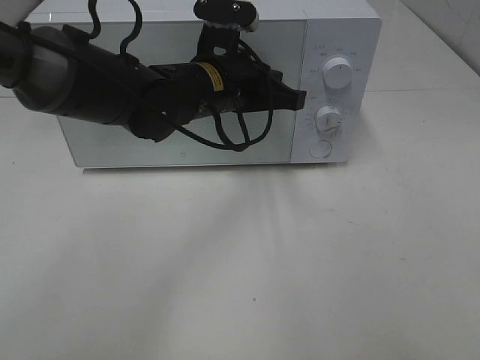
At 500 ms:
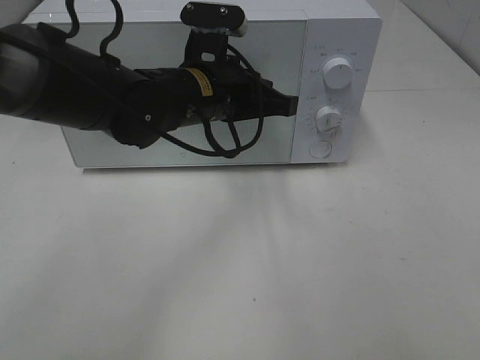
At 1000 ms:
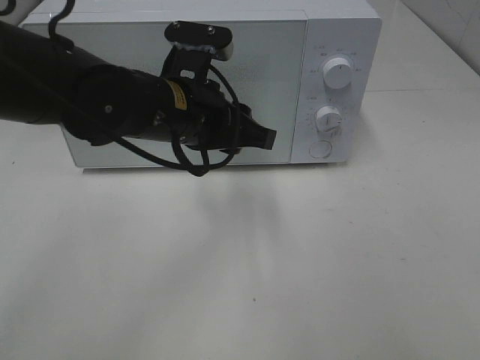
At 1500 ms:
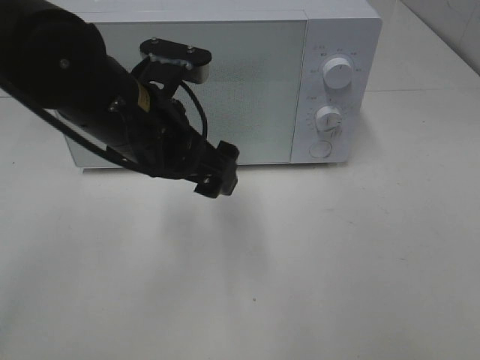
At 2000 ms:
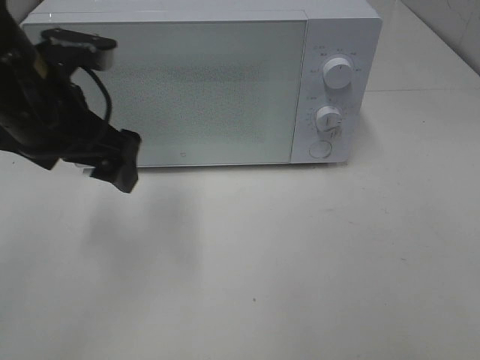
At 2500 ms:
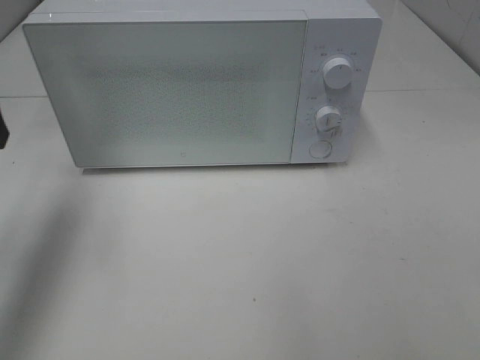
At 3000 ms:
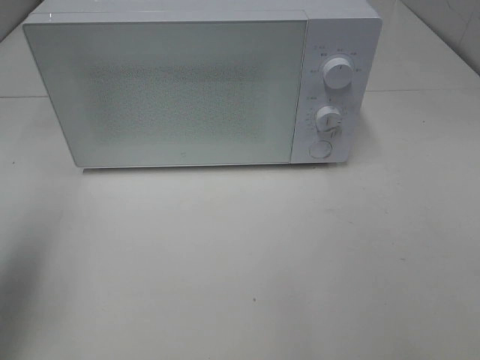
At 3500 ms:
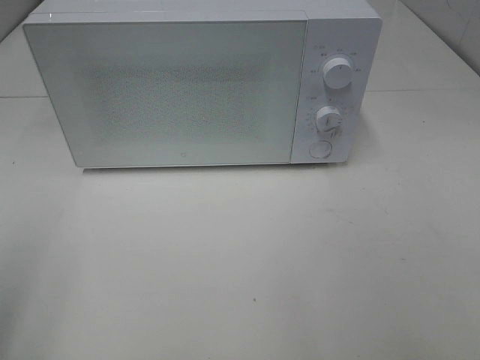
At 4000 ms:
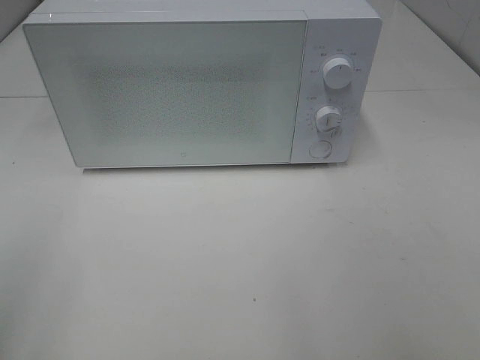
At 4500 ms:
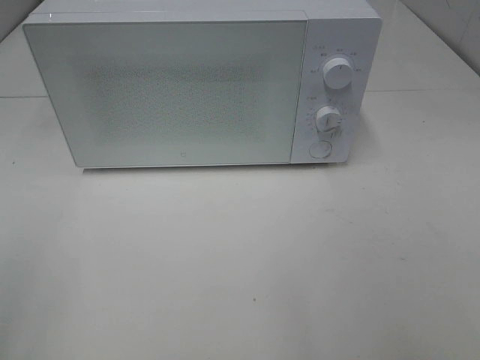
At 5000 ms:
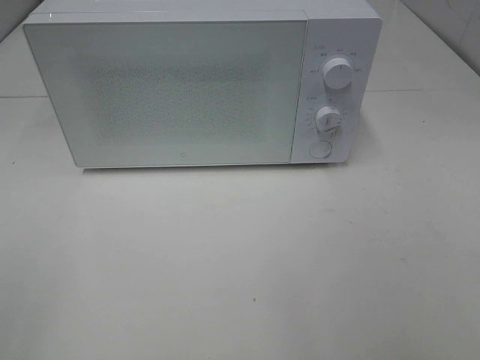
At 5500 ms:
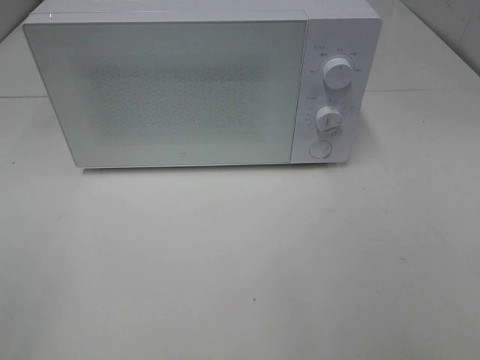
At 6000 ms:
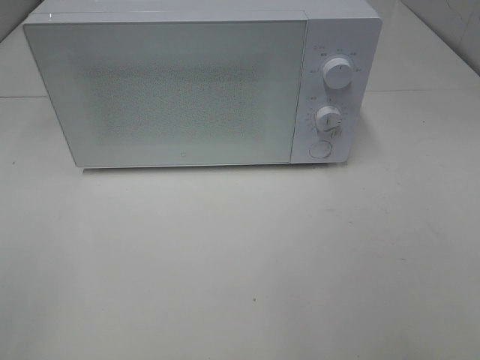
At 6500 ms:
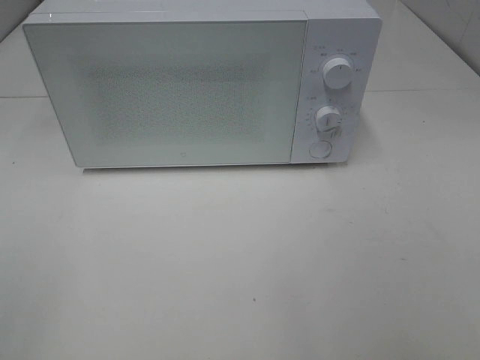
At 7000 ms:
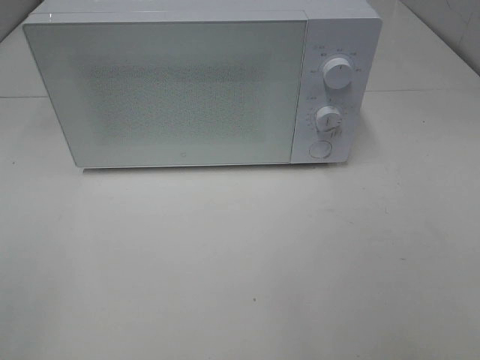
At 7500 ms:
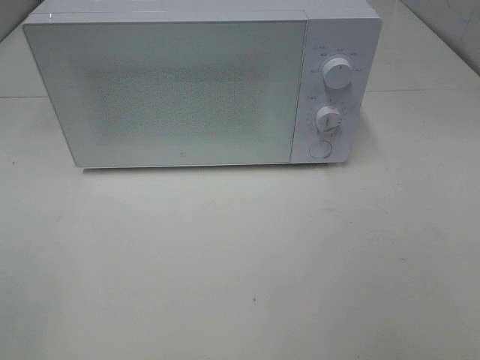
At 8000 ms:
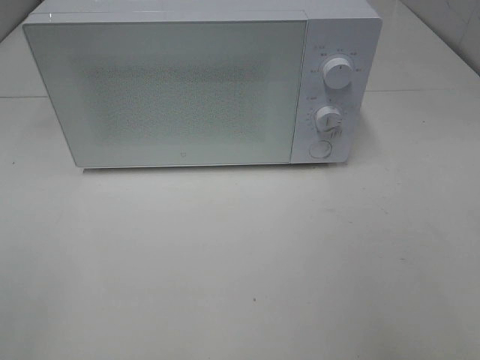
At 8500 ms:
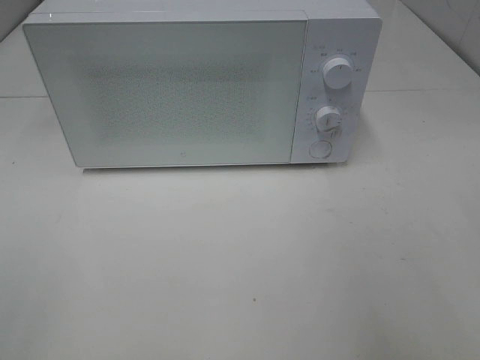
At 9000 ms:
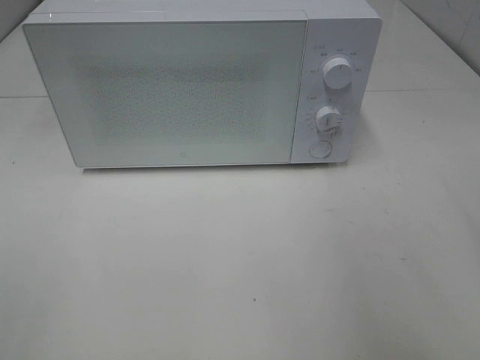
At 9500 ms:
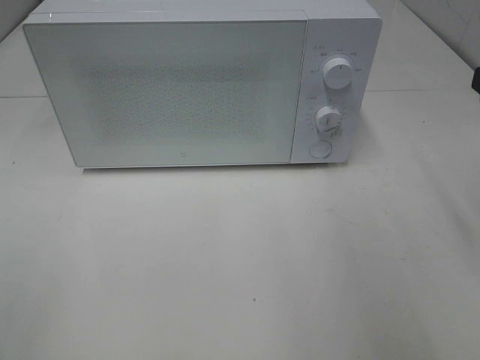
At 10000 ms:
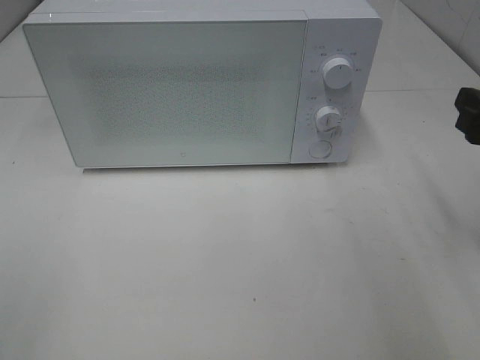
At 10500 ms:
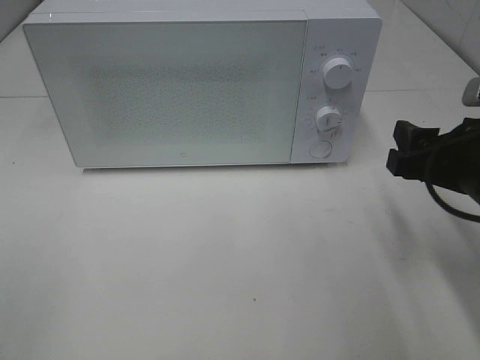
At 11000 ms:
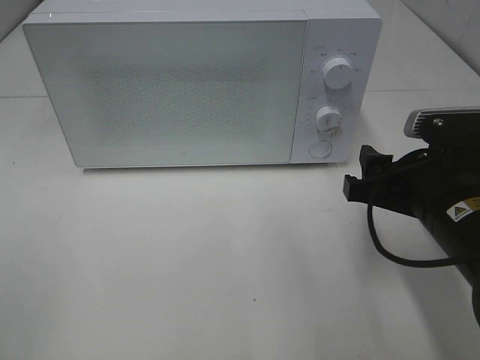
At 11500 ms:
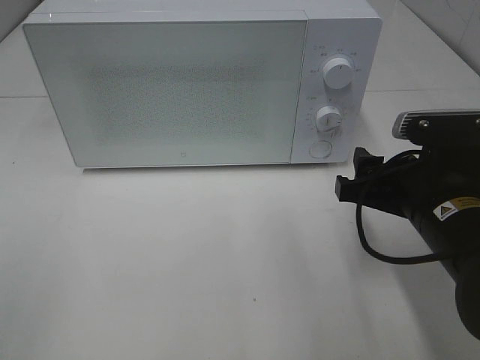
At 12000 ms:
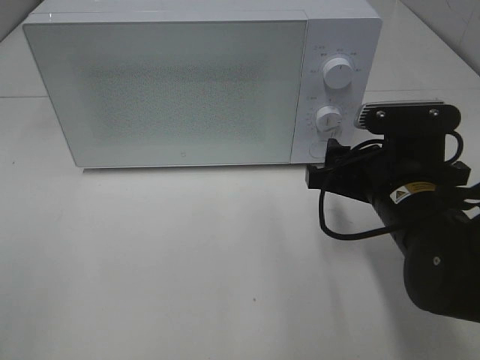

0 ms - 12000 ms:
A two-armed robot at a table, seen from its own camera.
Task of the whole recording: Heat Sandwich.
0 ms - 2000 ms: The left gripper moves to the left, backward and upward, approximately 20 cm, and opens.
2000 ms - 4000 ms: The left gripper goes some 25 cm backward and to the left.
8000 ms - 10000 ms: The right gripper travels forward and downward by approximately 15 cm.
10000 ms - 12000 ms: The right gripper is displaced to the left and downward by approximately 15 cm.

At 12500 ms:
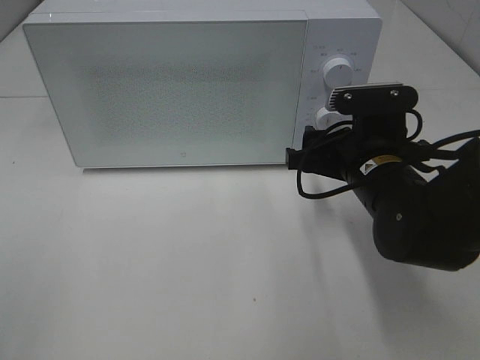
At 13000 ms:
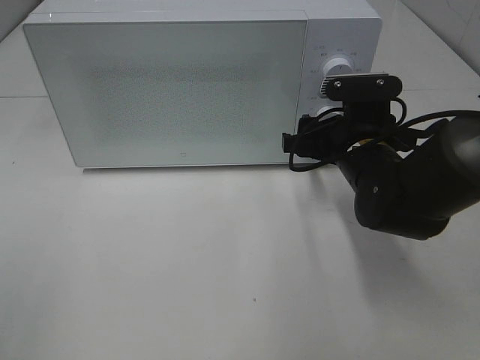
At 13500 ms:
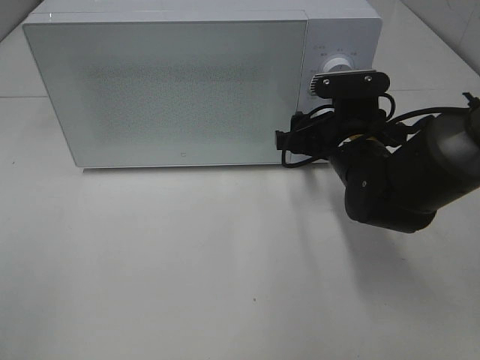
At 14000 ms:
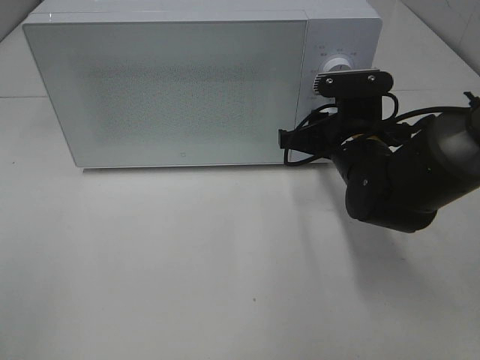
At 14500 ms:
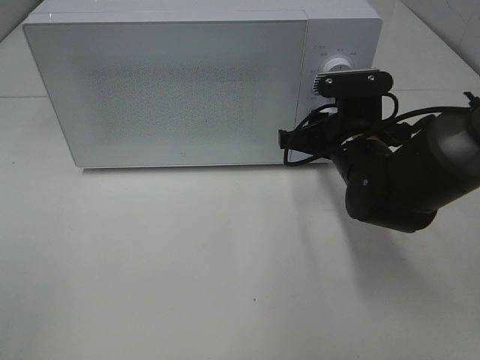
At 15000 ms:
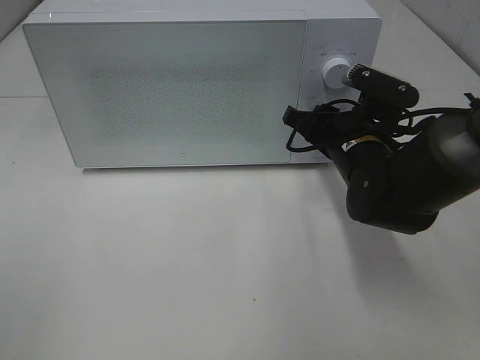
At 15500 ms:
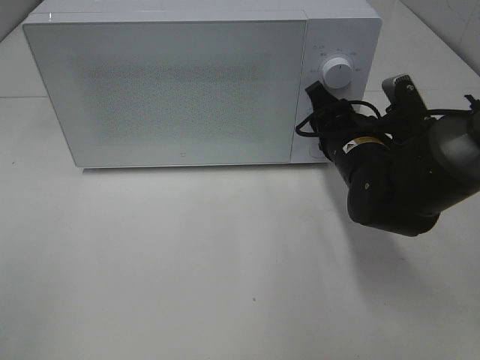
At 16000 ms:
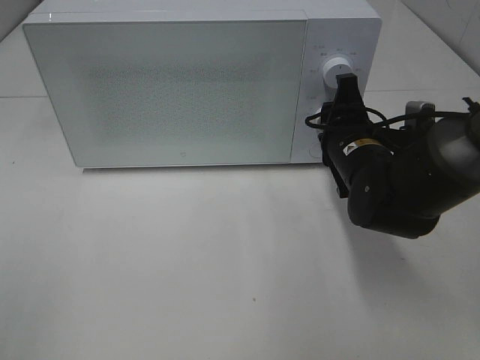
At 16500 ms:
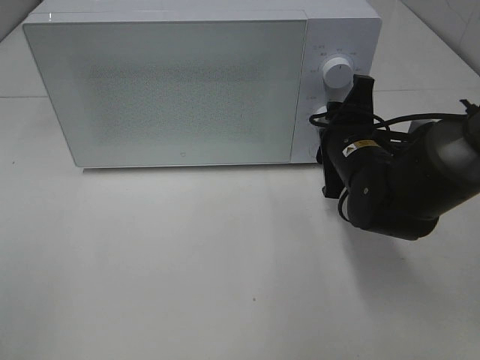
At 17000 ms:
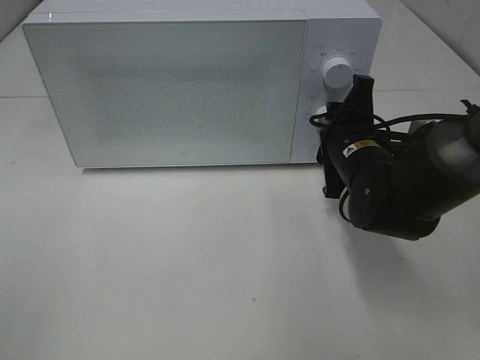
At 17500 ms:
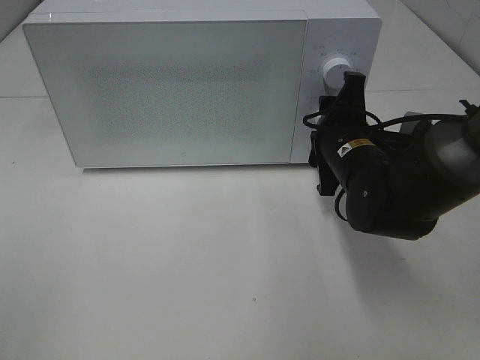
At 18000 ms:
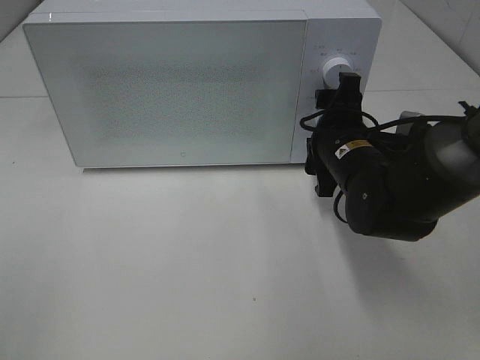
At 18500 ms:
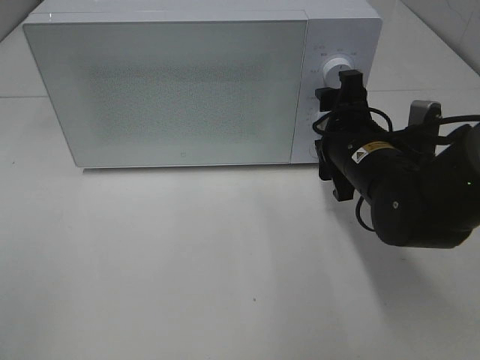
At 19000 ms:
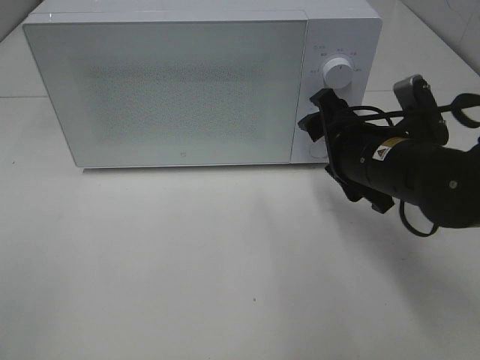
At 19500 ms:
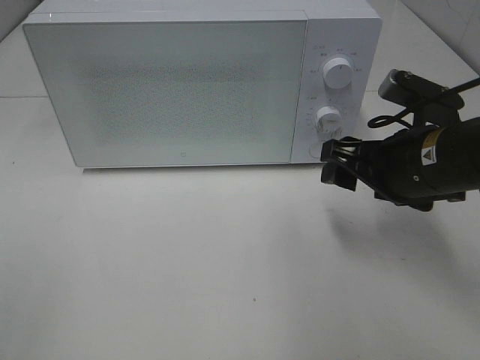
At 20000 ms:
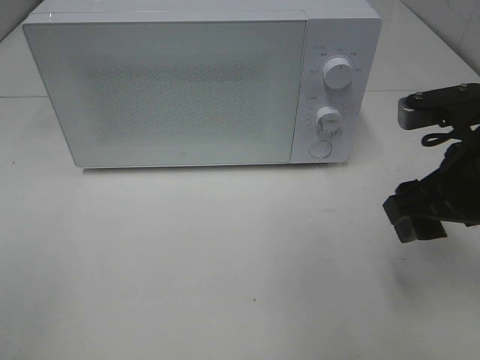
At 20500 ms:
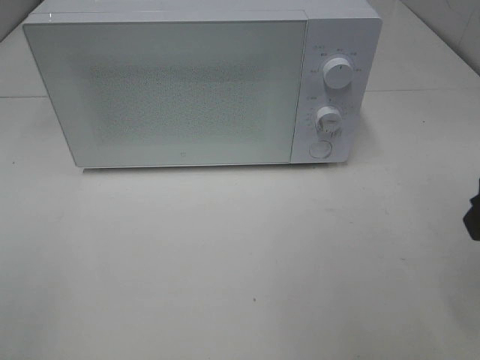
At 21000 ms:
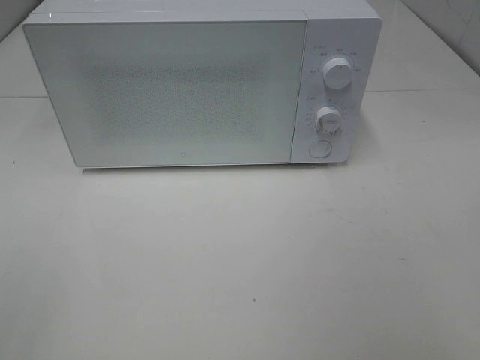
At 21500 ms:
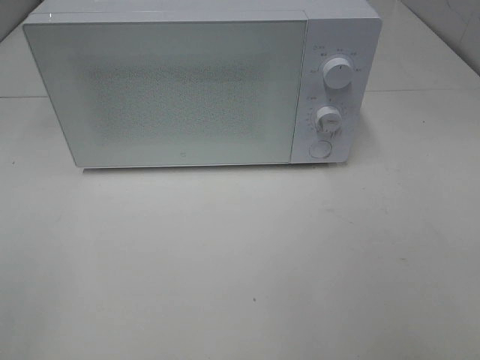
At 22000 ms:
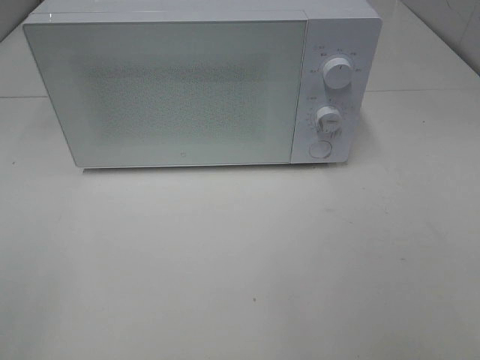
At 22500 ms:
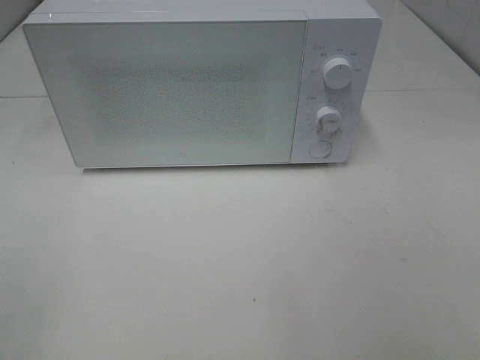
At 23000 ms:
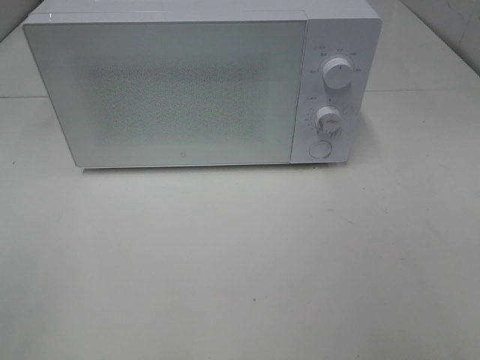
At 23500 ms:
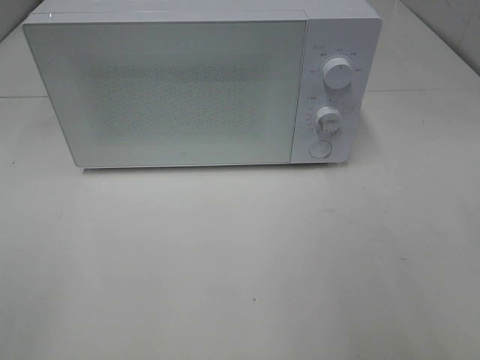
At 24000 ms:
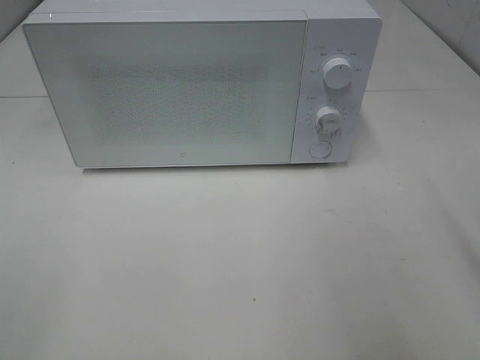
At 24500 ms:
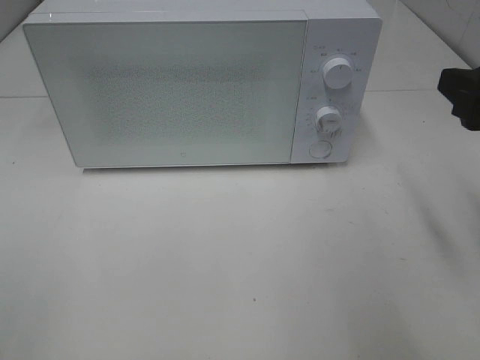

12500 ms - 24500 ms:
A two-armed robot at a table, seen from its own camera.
Task of the whole recording: Heat Sandwich.
Step, 12500 ms - 18500 ms: Right hand: twist timer button.
12500 ms - 14500 ms: The right gripper closes its fingers.
16500 ms - 18500 ms: The grippers stay close to where they were, moving slightly.
18500 ms - 20500 ms: The right gripper goes approximately 20 cm backward, upward and to the right.
20500 ms - 22500 ms: The right gripper moves backward, some 15 cm.
22500 ms - 24500 ms: The right gripper travels forward by about 20 cm.

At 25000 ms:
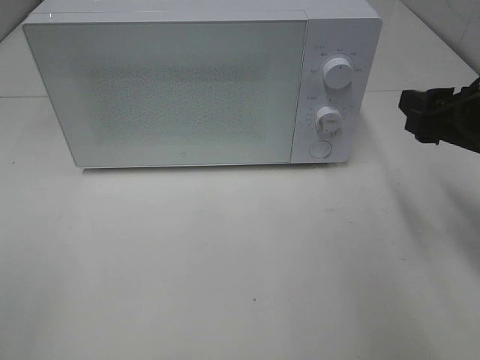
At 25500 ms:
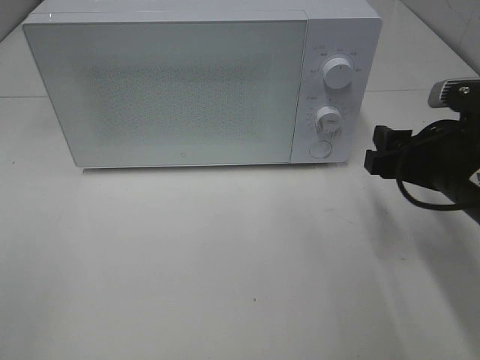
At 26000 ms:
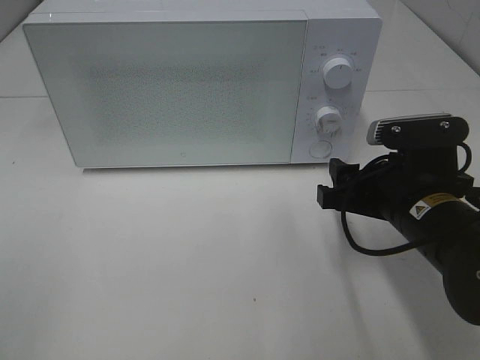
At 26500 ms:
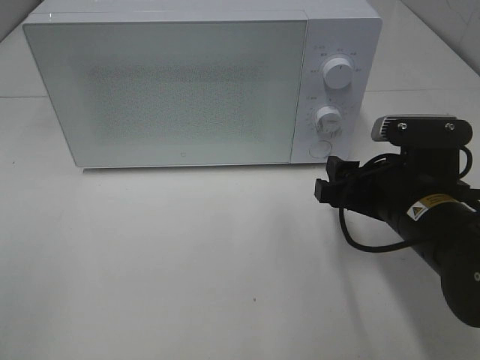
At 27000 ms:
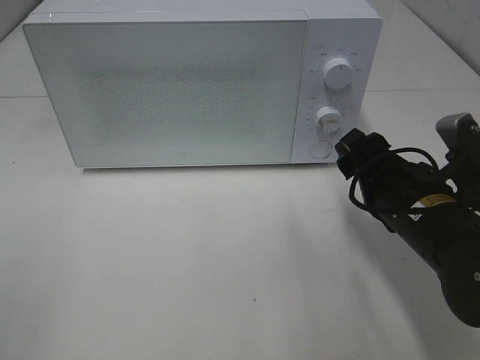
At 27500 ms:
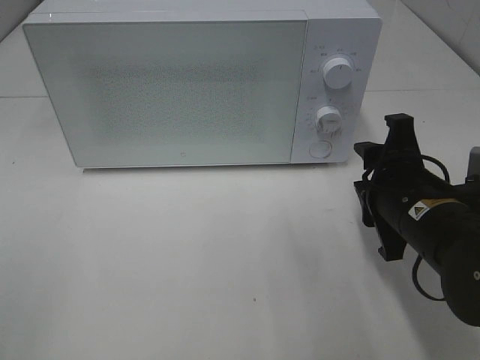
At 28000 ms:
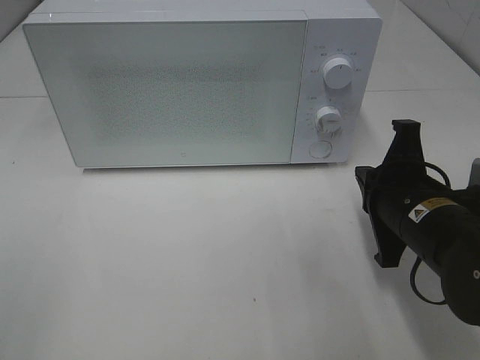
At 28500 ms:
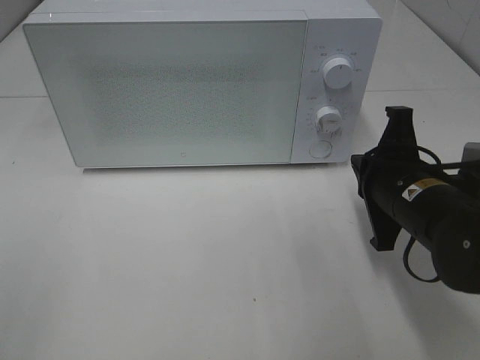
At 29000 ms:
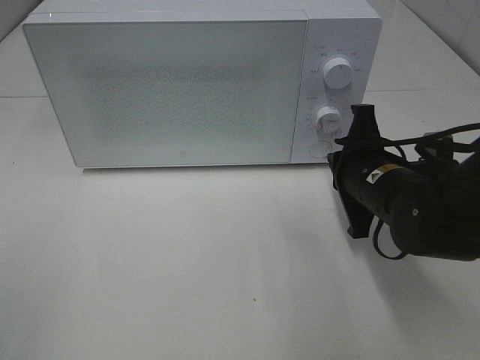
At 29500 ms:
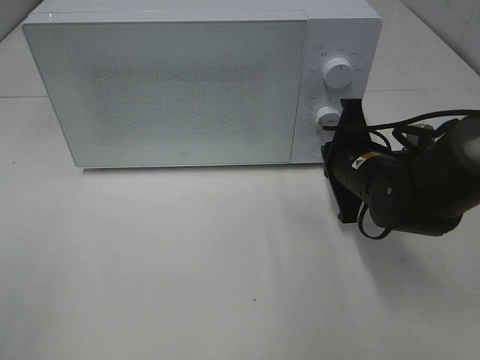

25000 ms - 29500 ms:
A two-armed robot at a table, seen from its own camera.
Task of the whole recording: Heat Sandwich.
25000 ms - 27000 ms: The right gripper heads to the left and downward, covering roughly 10 cm.
27000 ms - 29500 ms: The right gripper goes roughly 10 cm forward, and closes its fingers.
